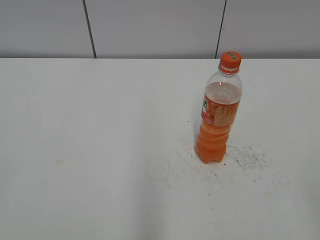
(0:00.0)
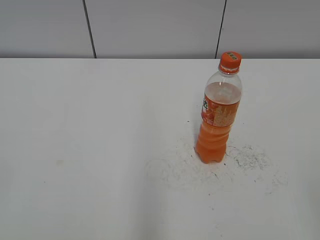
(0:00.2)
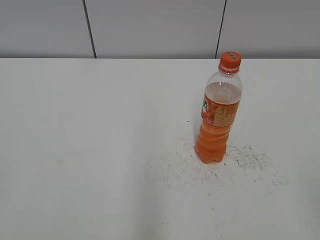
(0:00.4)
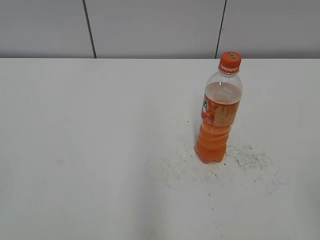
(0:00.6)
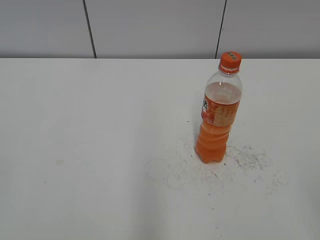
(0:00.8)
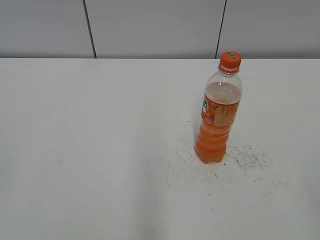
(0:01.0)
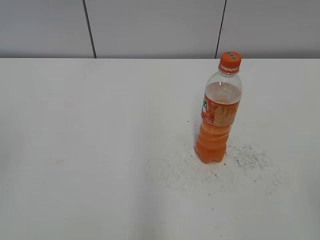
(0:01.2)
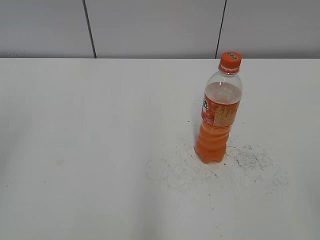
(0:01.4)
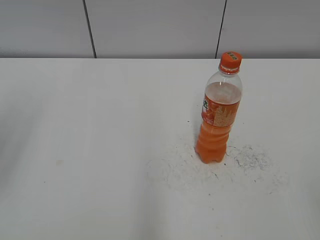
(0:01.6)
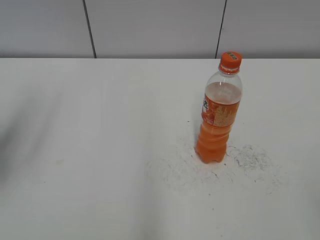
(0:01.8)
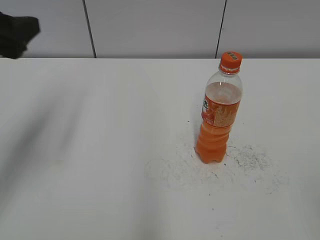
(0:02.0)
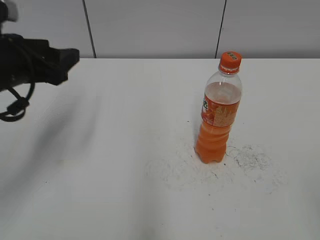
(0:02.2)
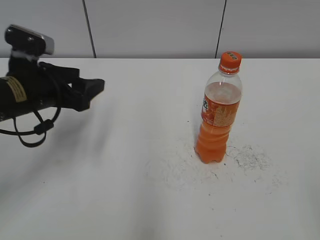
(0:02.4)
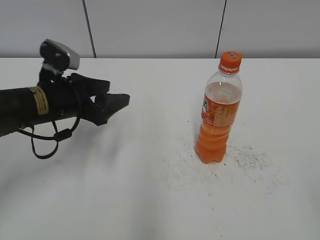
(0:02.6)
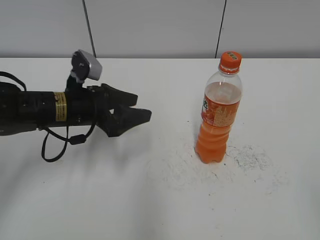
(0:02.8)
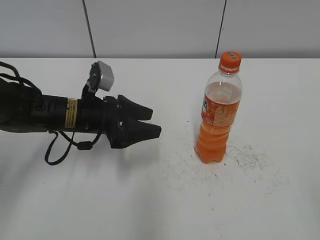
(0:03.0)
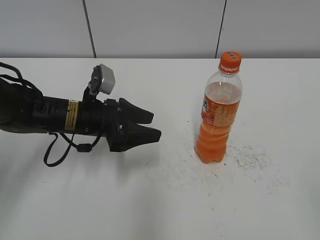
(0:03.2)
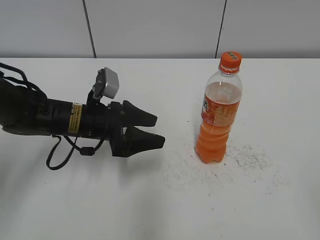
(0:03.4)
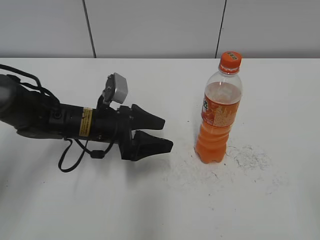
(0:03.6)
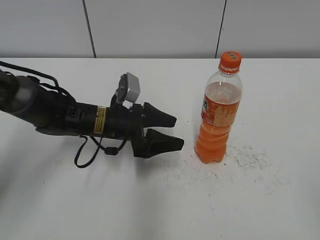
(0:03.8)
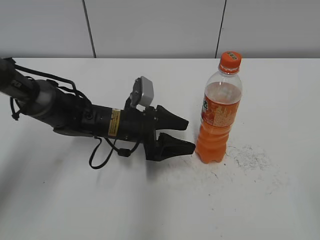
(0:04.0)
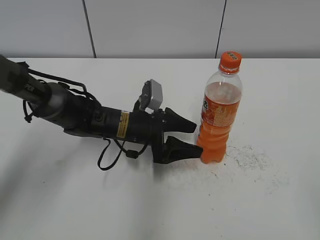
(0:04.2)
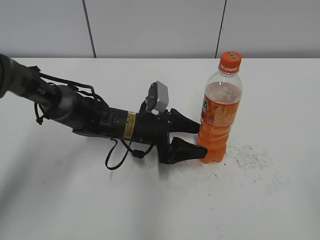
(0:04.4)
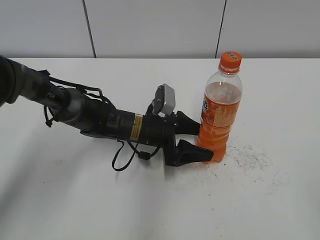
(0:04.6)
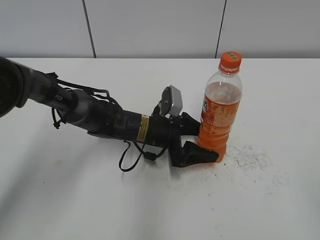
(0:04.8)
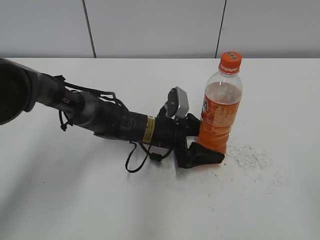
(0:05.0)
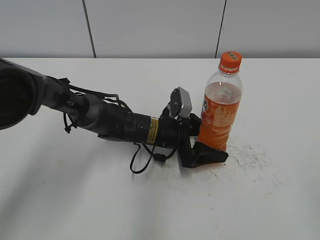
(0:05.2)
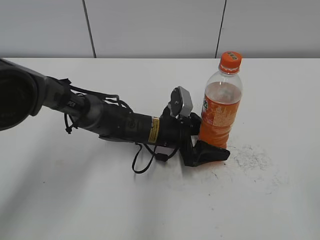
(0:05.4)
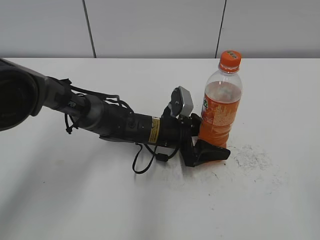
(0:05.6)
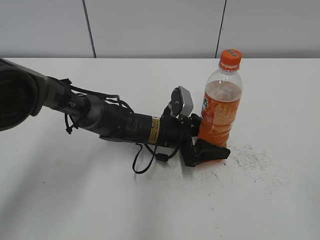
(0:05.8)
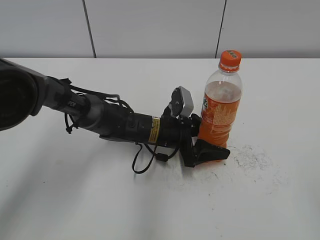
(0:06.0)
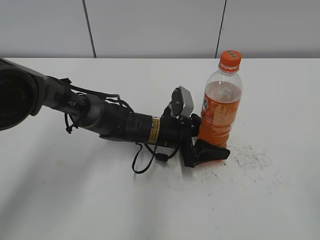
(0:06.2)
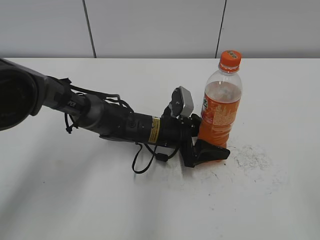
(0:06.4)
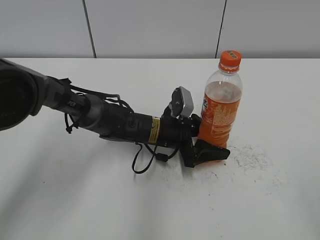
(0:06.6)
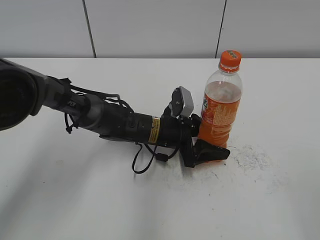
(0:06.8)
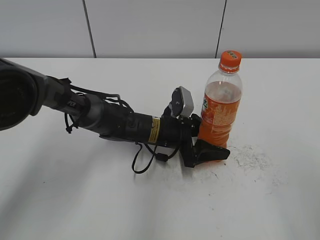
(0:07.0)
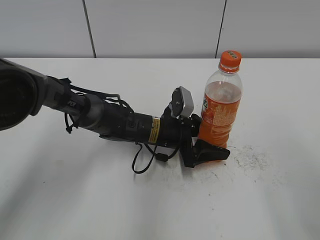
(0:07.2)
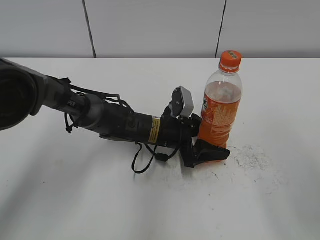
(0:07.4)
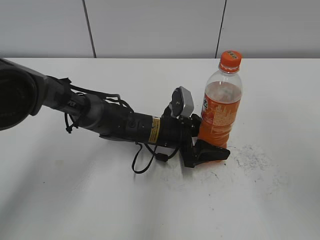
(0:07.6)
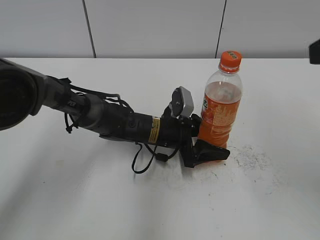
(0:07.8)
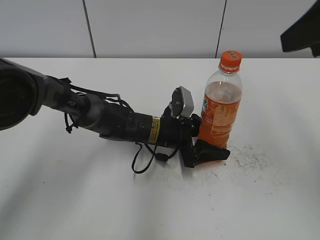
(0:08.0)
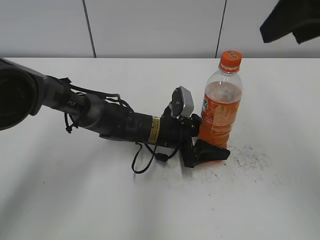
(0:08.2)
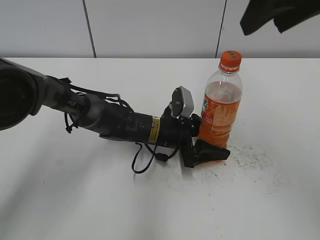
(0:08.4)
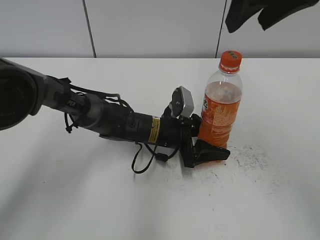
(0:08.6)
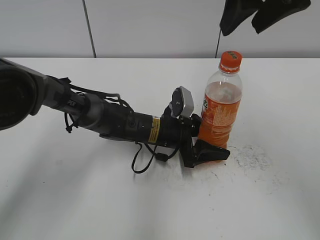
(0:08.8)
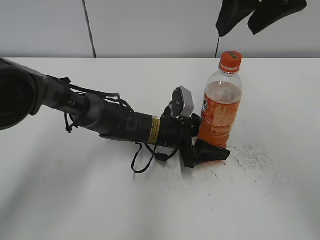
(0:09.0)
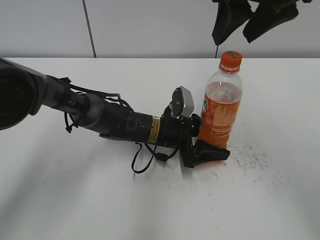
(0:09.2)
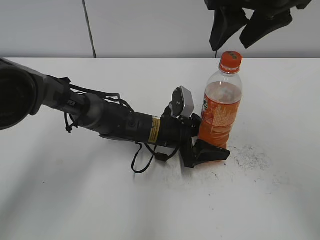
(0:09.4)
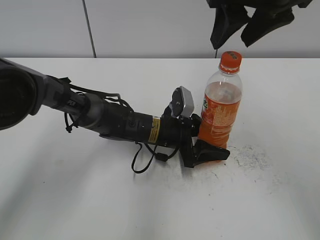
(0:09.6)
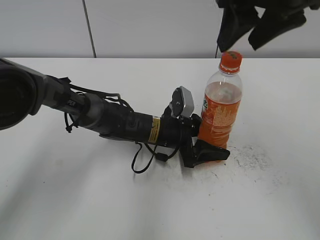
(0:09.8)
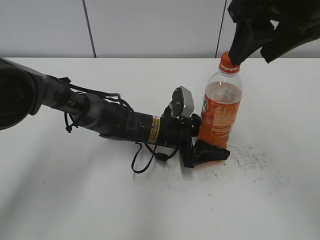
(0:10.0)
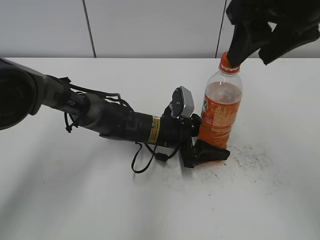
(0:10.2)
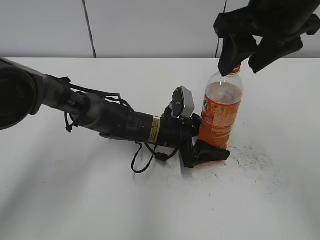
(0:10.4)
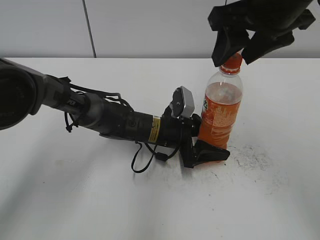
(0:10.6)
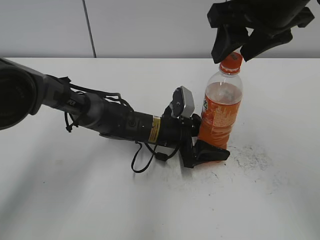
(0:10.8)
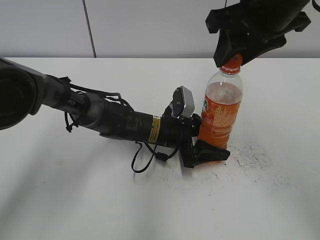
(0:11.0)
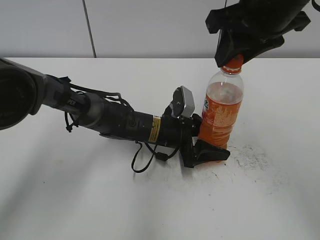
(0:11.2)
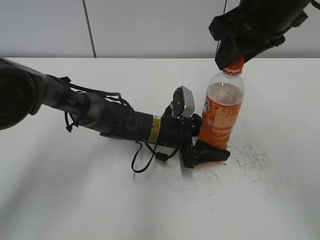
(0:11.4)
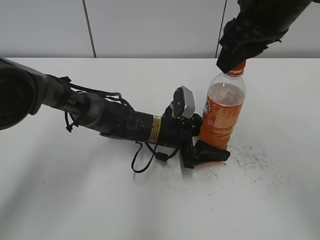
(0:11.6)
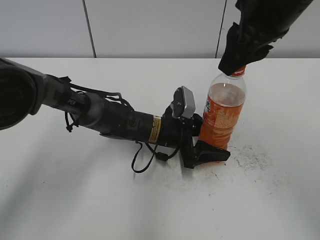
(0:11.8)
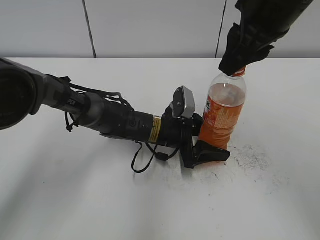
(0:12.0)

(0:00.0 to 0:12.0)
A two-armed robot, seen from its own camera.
Step, 0:00.0 - 0:05.6: Grab the Mirinda with the left hand.
0:01.6 - 0:03.0: The left gripper shifts some 30 cm downward, to the right and forward.
0:03.0 - 0:04.4: The left gripper is displaced to the right and downward by some 10 cm, and opens its fingers.
0:04.4 - 0:06.0: The left gripper shifts by some 5 cm, and closes up.
0:07.6 - 0:09.0: The right gripper shifts approximately 20 cm forward and to the left.
0:09.0 - 0:10.4: The grippers move only a little.
0:10.4 - 0:12.0: The right gripper closes.

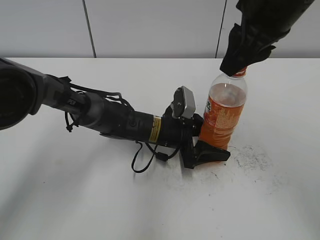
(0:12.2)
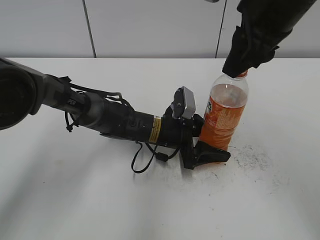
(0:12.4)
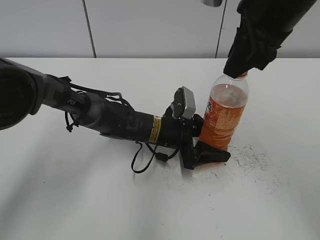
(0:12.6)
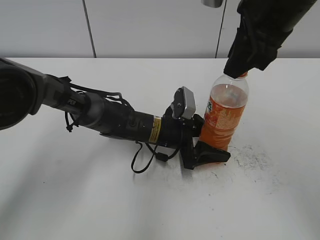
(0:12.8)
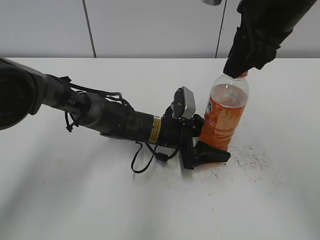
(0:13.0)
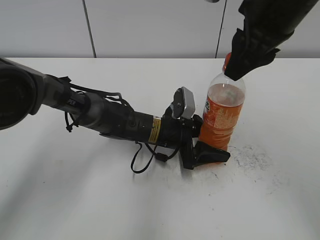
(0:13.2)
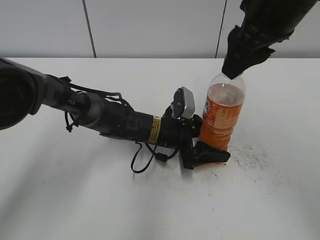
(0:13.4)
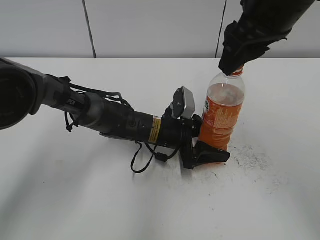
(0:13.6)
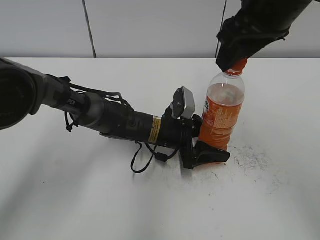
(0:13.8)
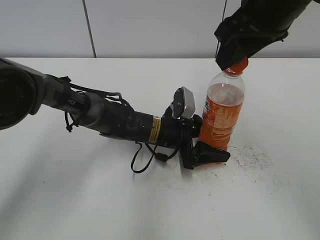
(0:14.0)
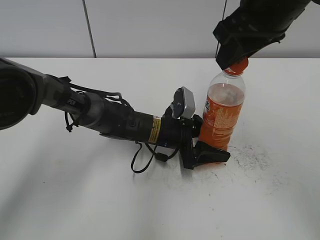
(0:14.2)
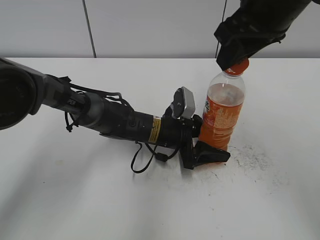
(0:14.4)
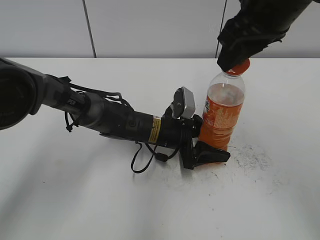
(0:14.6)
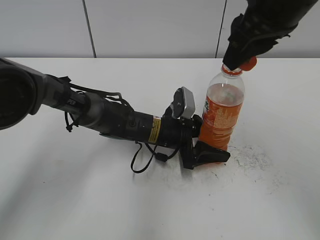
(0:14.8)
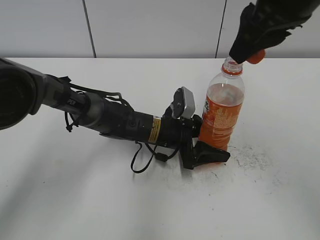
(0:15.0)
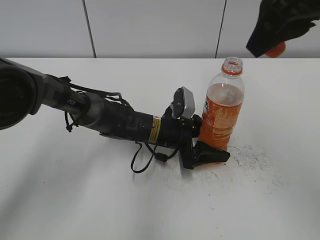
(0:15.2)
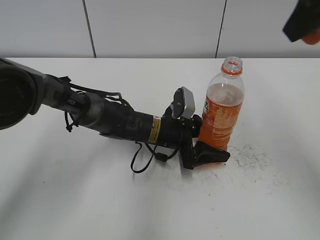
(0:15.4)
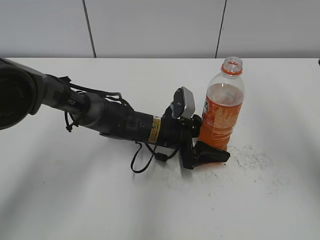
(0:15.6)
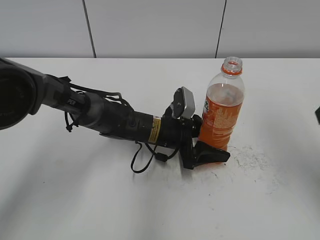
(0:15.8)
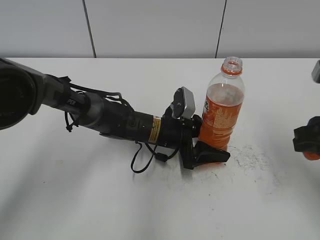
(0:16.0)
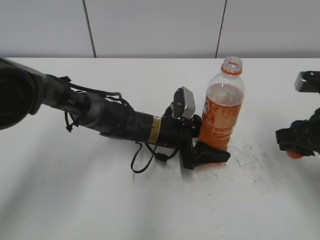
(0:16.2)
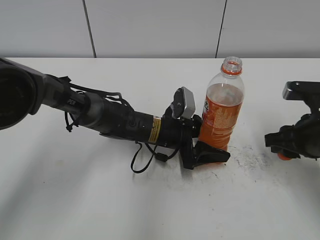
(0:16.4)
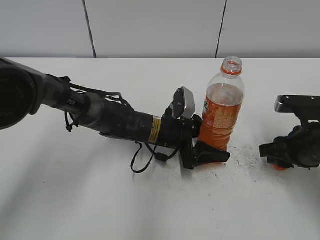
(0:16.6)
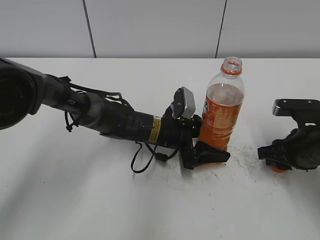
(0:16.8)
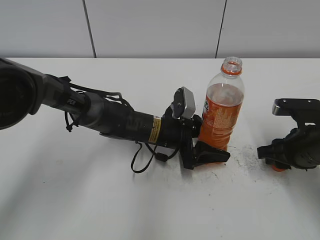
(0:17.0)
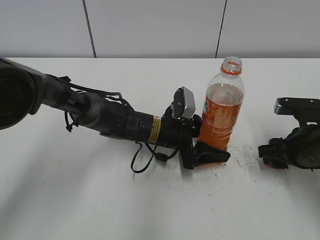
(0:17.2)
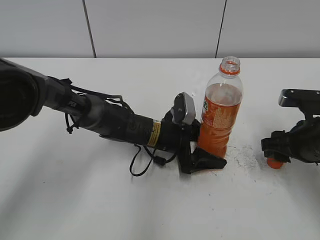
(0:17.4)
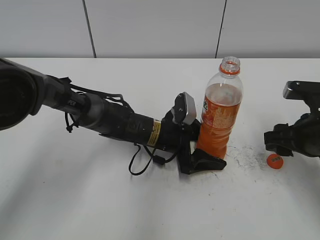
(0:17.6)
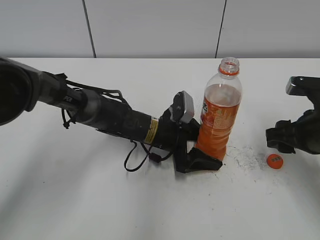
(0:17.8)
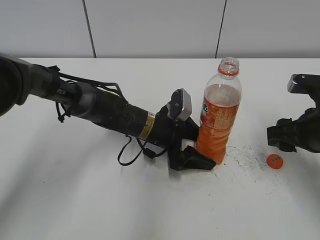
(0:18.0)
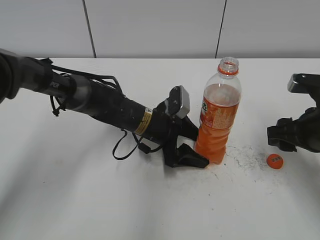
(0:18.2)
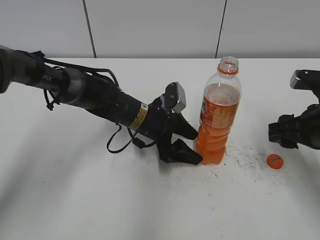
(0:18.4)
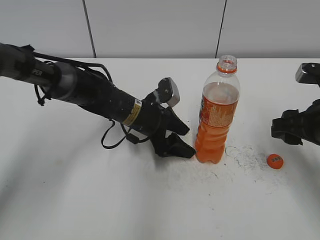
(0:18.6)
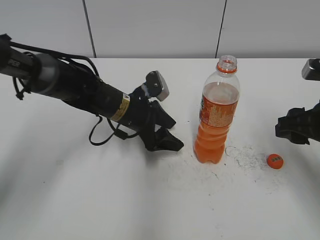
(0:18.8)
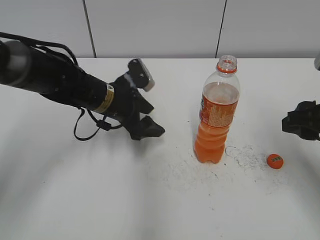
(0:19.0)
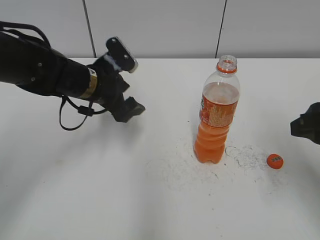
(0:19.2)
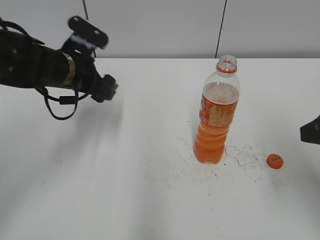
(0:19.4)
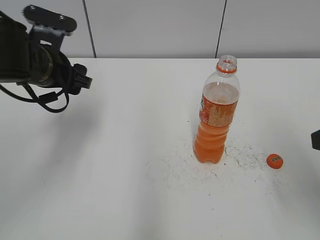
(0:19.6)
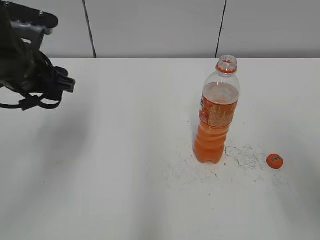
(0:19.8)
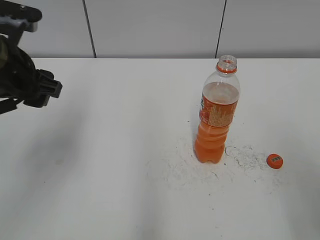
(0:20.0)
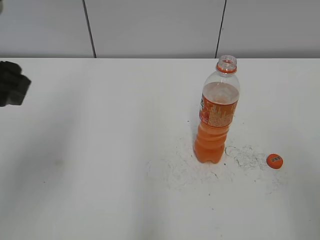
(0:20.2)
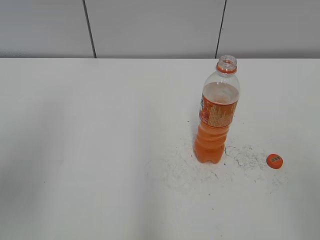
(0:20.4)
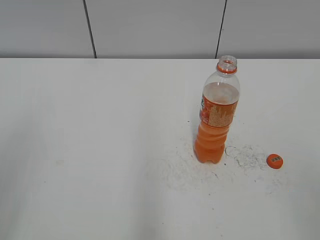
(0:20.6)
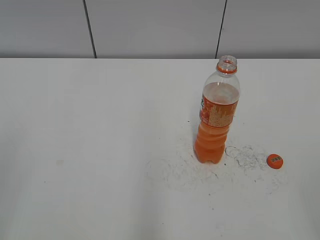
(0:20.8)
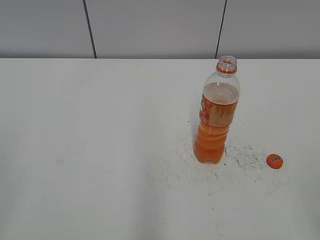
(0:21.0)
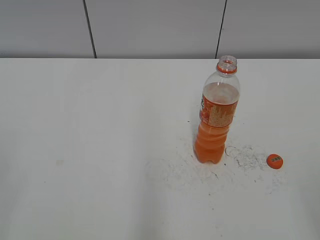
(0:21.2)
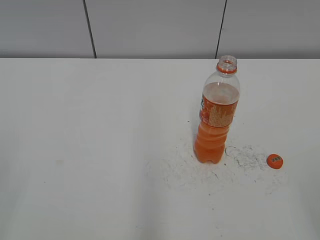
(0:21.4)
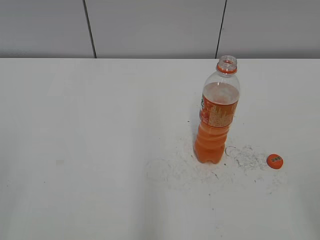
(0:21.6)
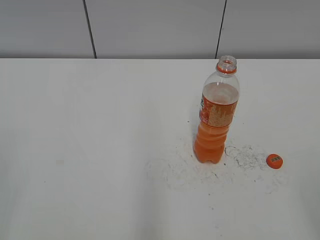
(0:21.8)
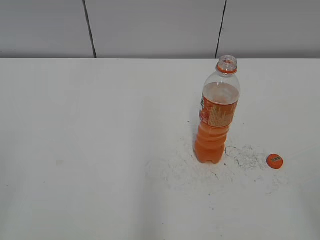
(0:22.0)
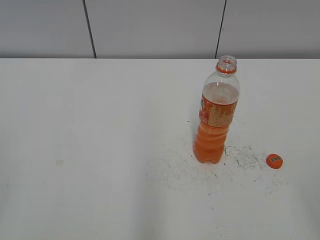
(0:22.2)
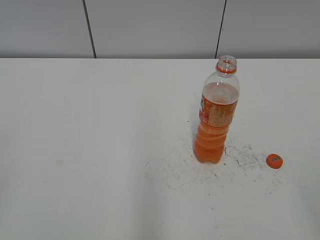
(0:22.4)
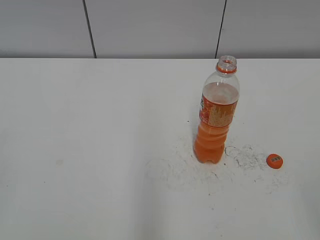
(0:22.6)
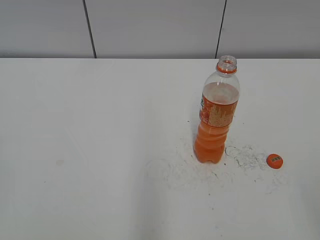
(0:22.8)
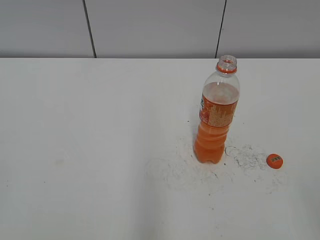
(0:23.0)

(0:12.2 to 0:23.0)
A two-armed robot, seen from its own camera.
Step, 0:12.2 - 0:14.8: Twist the bottle cap with the right hand.
Step, 0:15.0 - 0:18.0: Place the bottle cap on the table with the right hand.
Step, 0:18.2 - 0:18.6: Place the Mirinda with the left hand.
0:12.2 - 0:13.8: The right gripper opens.
0:13.8 - 0:15.2: The right gripper changes place by some 5 cm, and closes.
0:15.2 - 0:16.8: The right gripper is displaced downward by roughly 25 cm.
0:16.8 - 0:18.4: The right gripper moves upward, roughly 5 cm, and opens up; the left gripper opens up.
0:18.4 - 0:20.0: The left gripper travels upward, to the left and backward by approximately 25 cm. The right gripper goes about 20 cm backward and upward.
0:20.0 - 0:21.4: The left gripper moves backward and to the left, roughly 25 cm, and closes its fingers.
